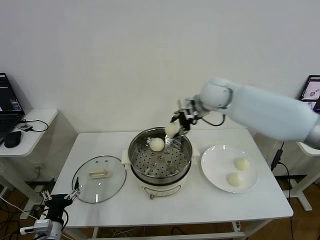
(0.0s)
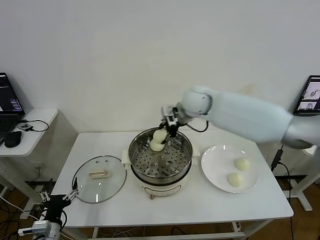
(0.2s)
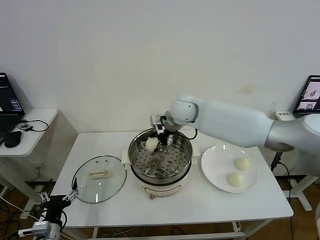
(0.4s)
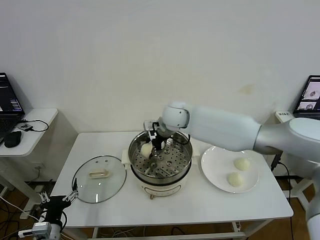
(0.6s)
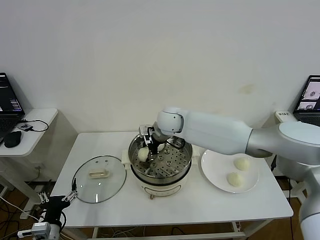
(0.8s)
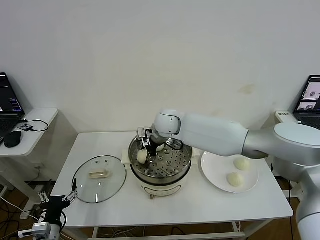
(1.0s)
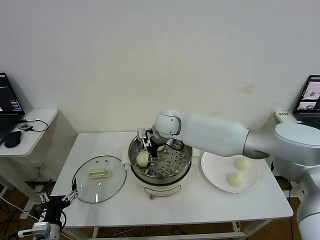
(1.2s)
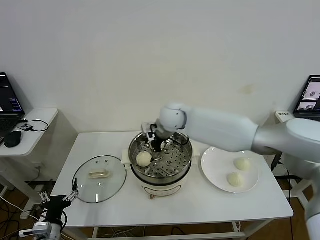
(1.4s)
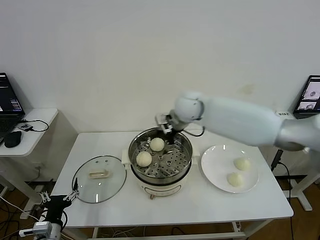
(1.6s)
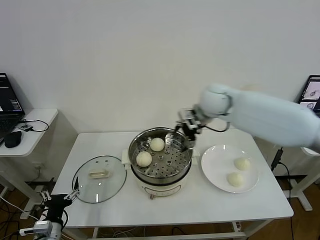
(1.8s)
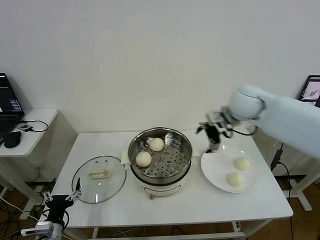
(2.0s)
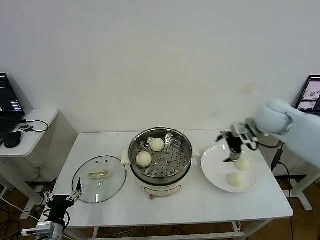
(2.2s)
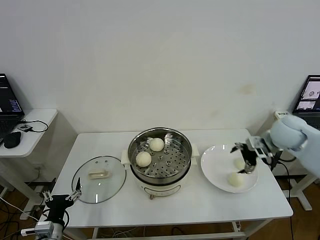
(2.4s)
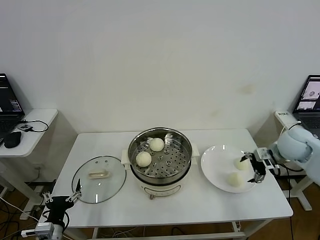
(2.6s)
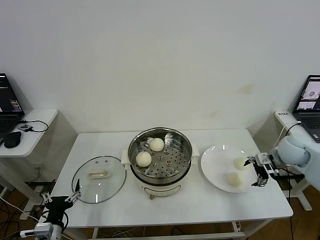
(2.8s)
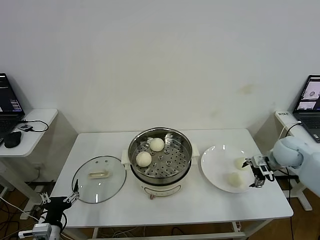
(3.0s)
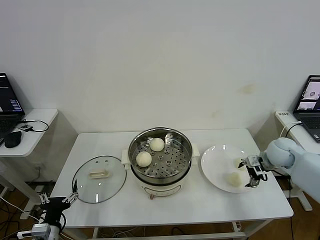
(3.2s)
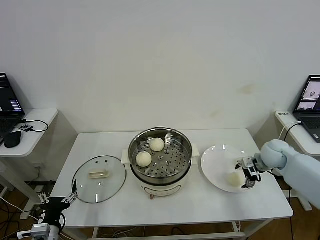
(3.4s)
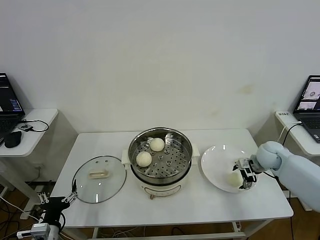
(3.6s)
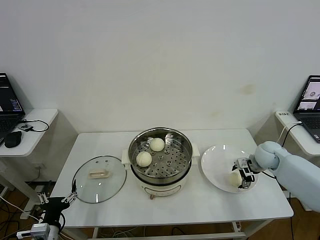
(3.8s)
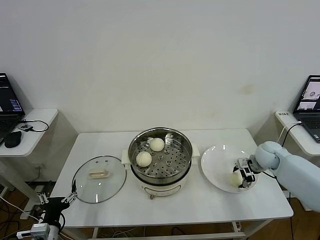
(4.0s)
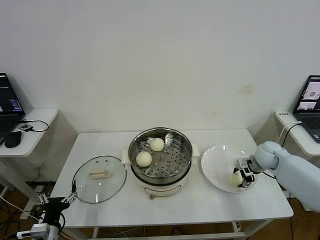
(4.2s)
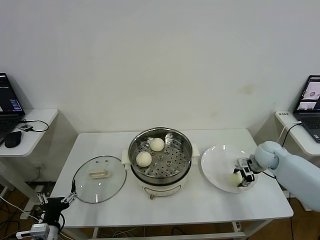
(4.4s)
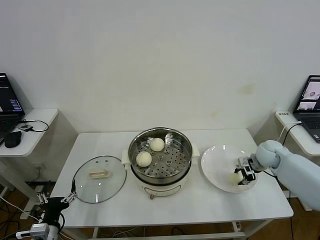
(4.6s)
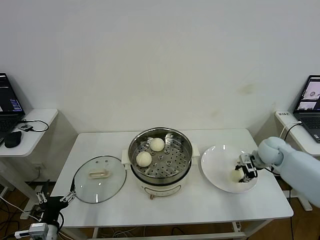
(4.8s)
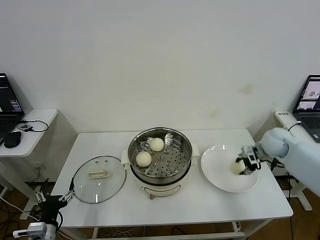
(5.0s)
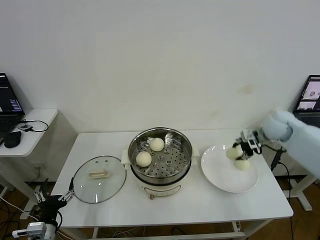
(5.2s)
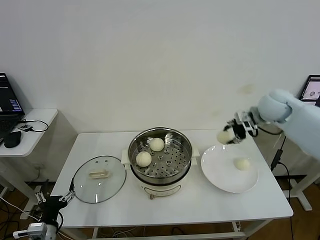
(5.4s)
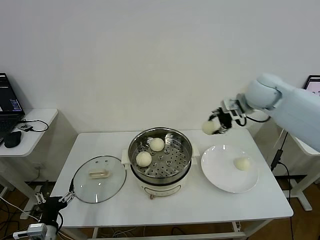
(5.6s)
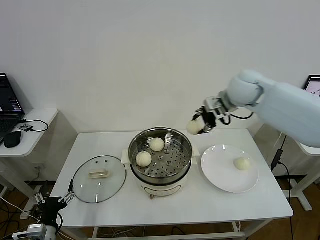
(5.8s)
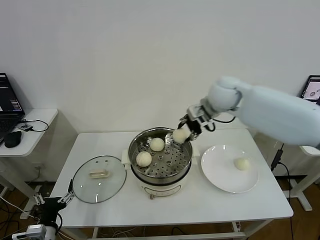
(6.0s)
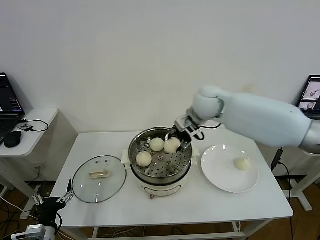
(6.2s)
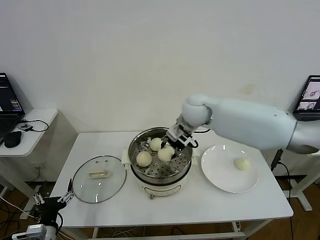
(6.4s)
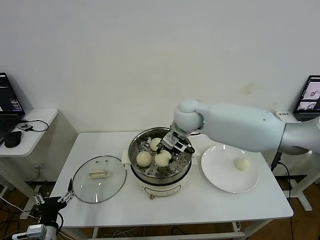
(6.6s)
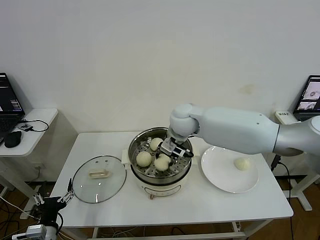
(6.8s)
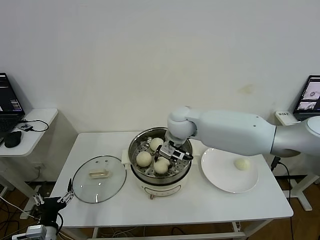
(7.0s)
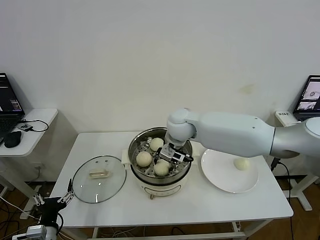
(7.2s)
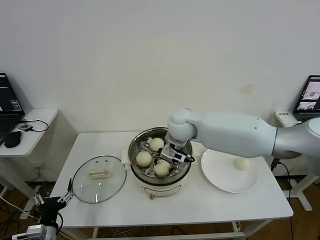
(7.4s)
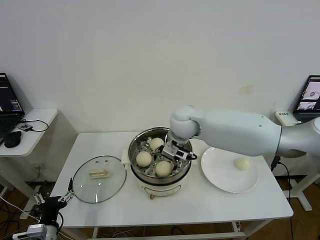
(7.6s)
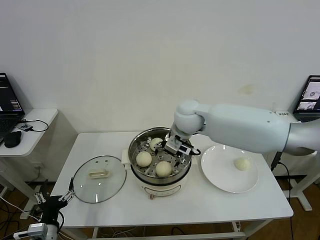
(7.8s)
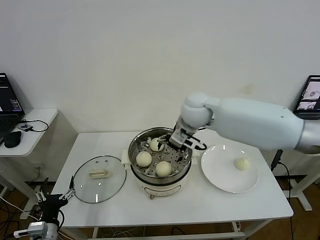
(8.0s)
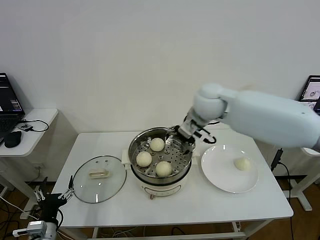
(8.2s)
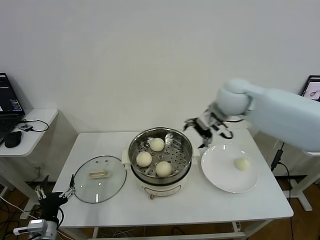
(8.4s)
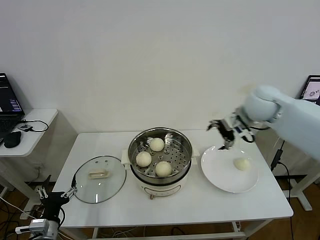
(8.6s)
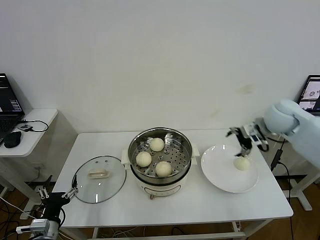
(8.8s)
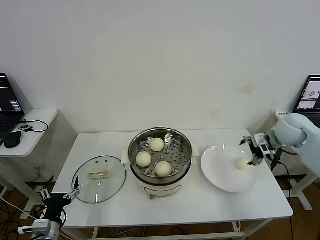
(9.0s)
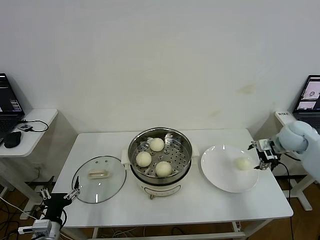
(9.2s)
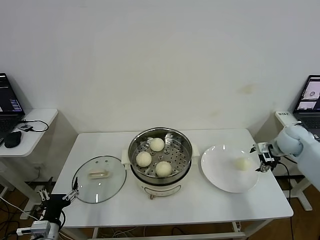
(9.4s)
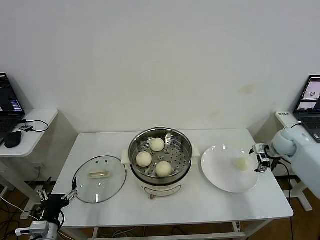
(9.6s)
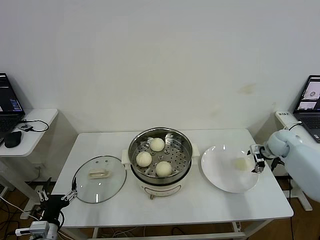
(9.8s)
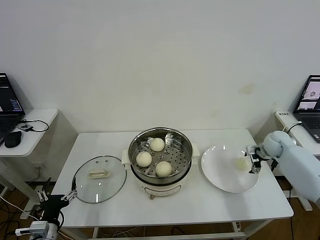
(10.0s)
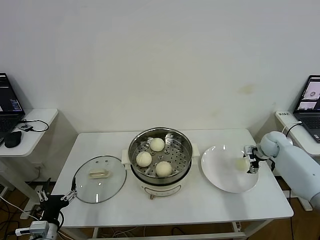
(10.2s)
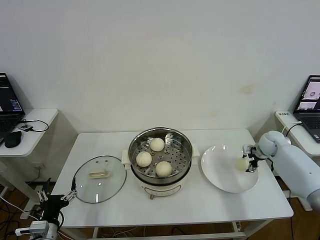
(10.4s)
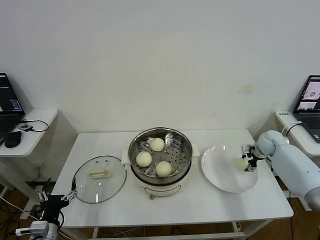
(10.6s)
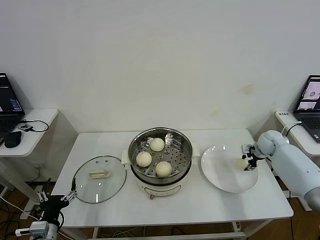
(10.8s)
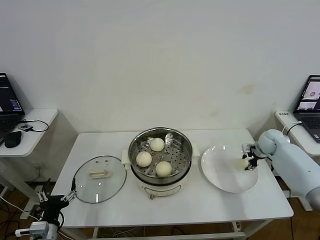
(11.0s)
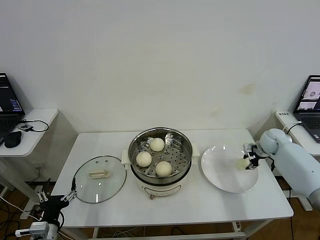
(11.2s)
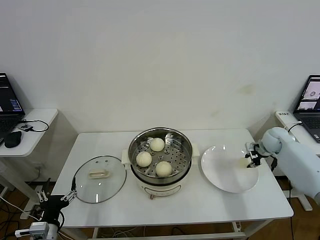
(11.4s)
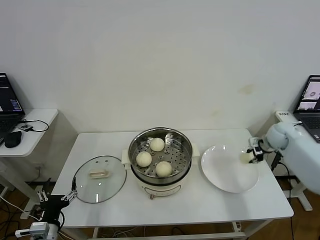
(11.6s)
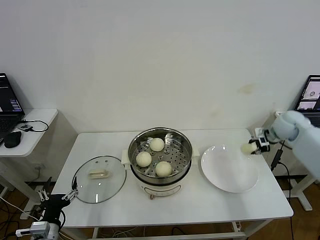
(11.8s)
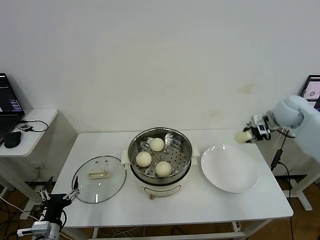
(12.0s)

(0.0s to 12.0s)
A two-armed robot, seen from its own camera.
Step, 1.4s - 4.4s: Grasp the baozi in the plate with right gripper.
Step, 4.6s - 7.6s: Place the baozi on the steamer with right gripper.
Step, 7.8s - 11.2s: Grasp the baozi in the plate with right gripper.
0.0s - 1.6s: The right gripper shifts approximately 10 cm to the left, and opens up.
1.6s - 3.0s: The right gripper heads to the right, covering about 35 cm.
3.0s - 4.4s: The right gripper moves downward, roughly 5 cm, and closes its fingers.
4.4s - 6.0s: The right gripper is displaced upward and to the left by approximately 30 cm.
6.0s - 7.6s: The right gripper moves to the left and downward, approximately 15 cm, and opens.
7.6s - 9.0s: The right gripper is displaced to the right by roughly 35 cm.
9.0s - 10.4s: The right gripper shifts approximately 15 cm downward and forward.
10.4s - 12.0s: The right gripper moves upward, approximately 15 cm, and closes.

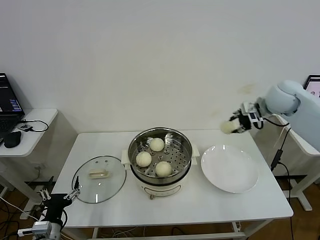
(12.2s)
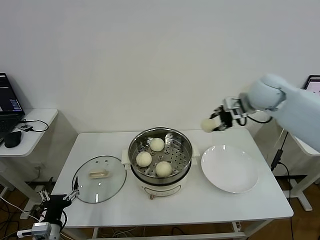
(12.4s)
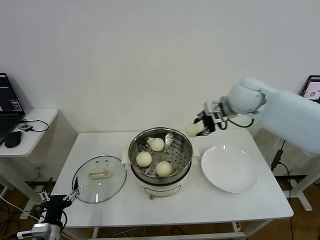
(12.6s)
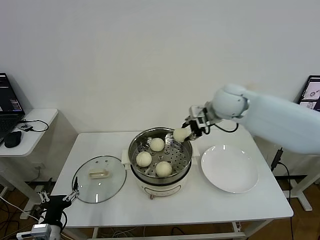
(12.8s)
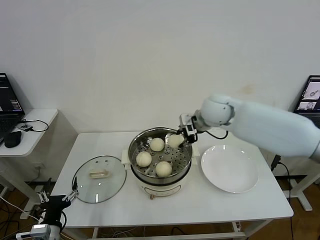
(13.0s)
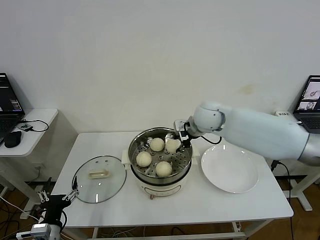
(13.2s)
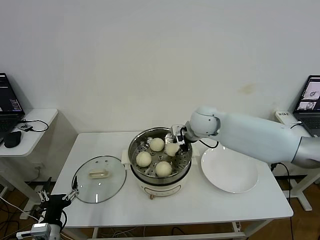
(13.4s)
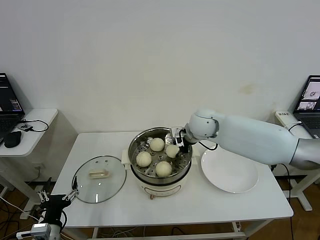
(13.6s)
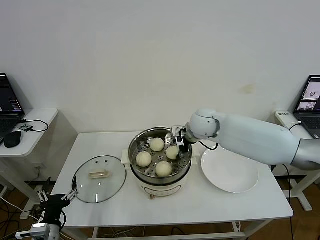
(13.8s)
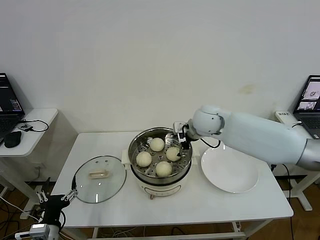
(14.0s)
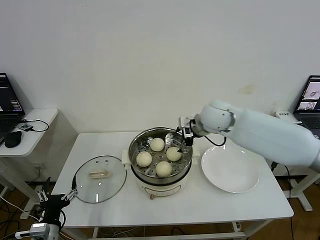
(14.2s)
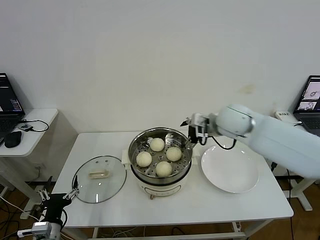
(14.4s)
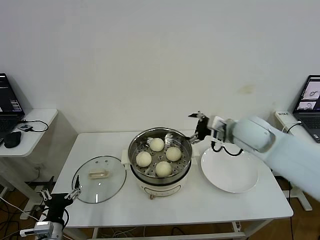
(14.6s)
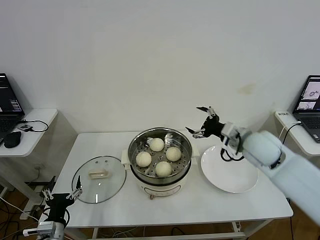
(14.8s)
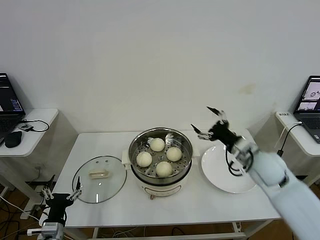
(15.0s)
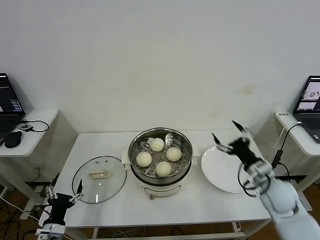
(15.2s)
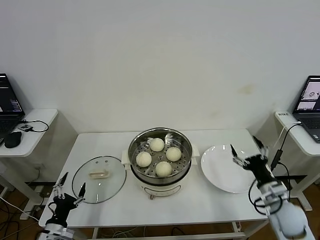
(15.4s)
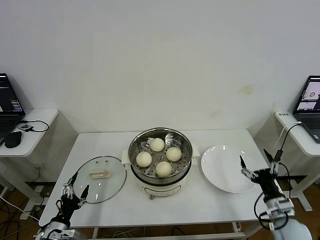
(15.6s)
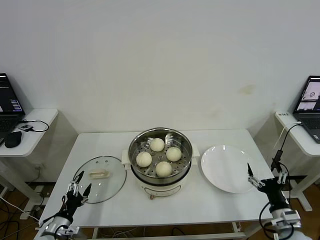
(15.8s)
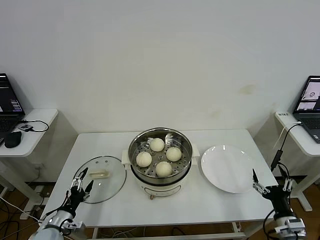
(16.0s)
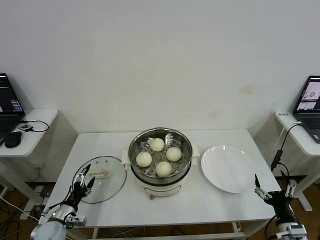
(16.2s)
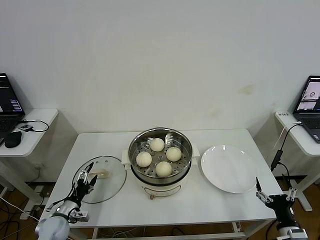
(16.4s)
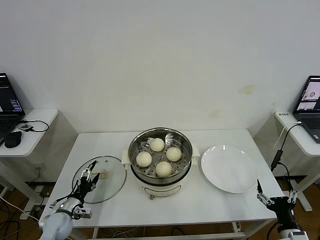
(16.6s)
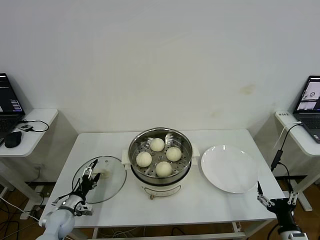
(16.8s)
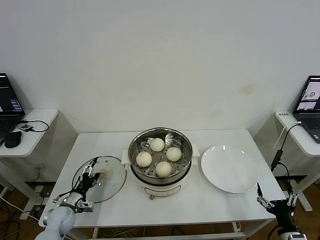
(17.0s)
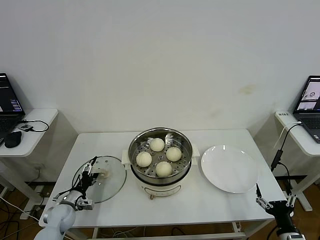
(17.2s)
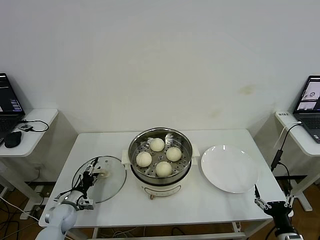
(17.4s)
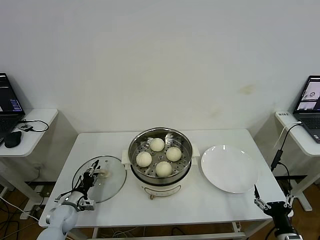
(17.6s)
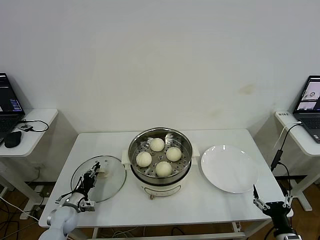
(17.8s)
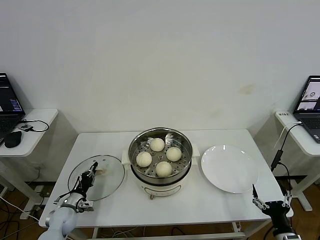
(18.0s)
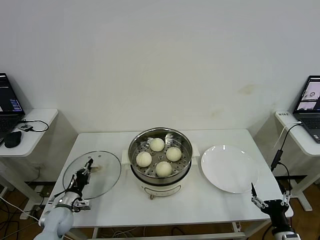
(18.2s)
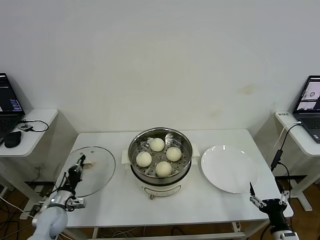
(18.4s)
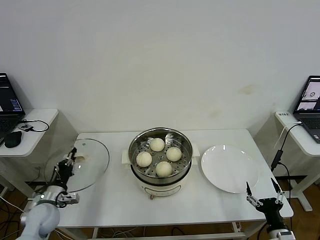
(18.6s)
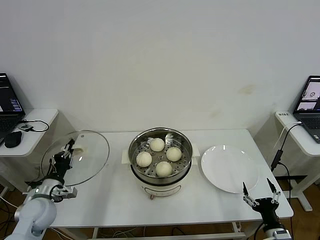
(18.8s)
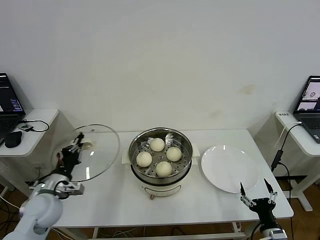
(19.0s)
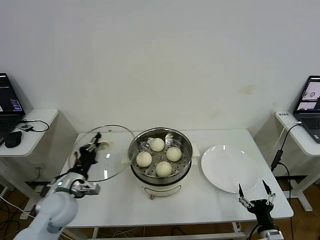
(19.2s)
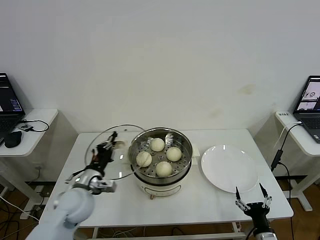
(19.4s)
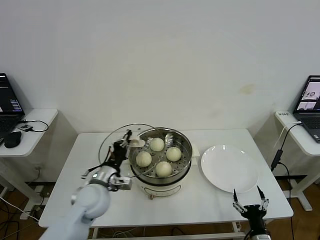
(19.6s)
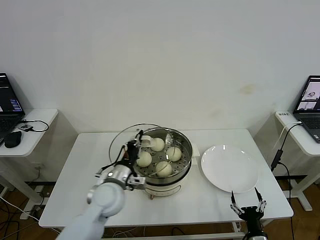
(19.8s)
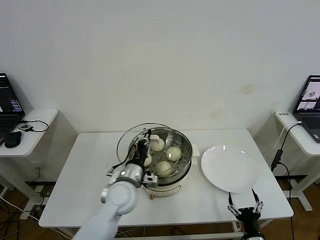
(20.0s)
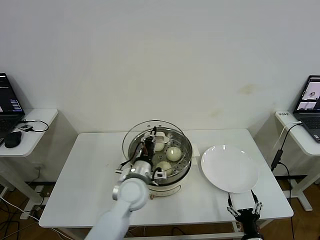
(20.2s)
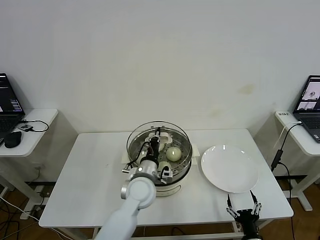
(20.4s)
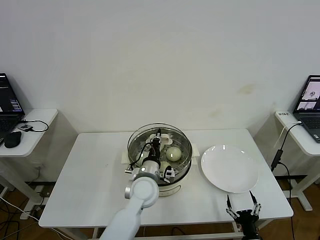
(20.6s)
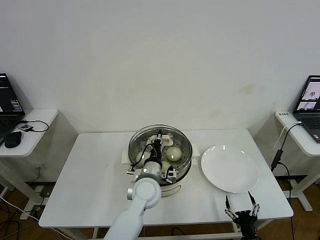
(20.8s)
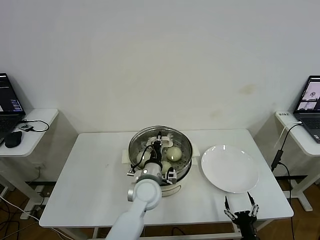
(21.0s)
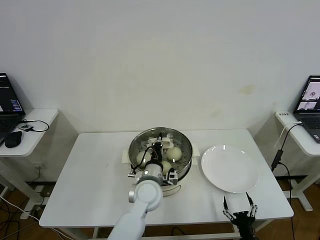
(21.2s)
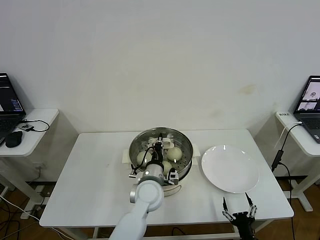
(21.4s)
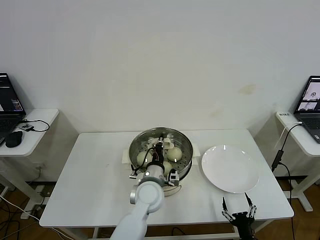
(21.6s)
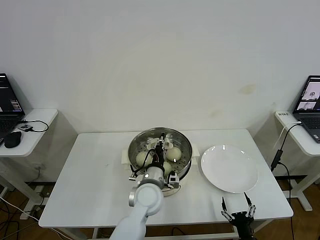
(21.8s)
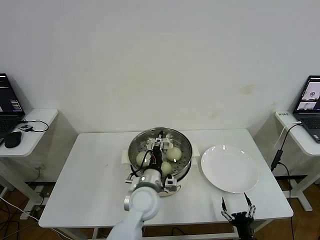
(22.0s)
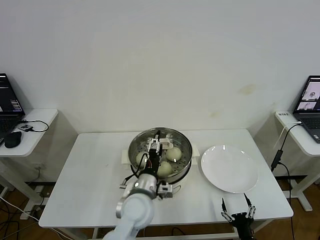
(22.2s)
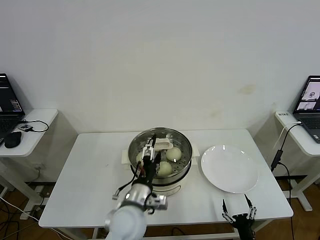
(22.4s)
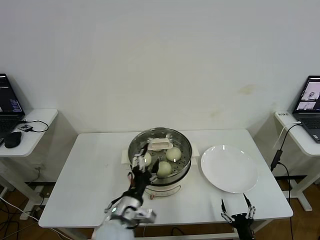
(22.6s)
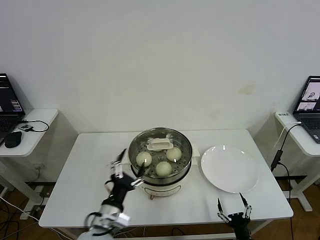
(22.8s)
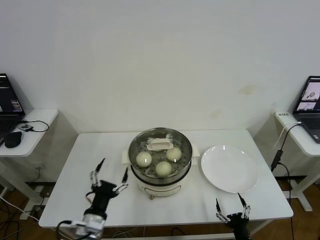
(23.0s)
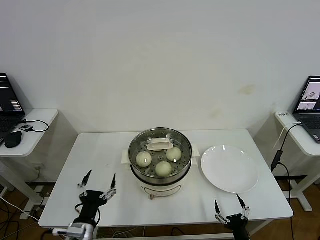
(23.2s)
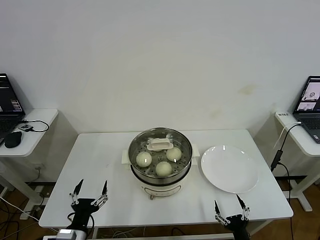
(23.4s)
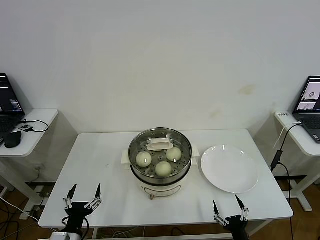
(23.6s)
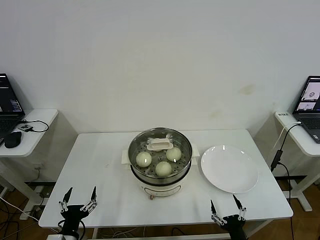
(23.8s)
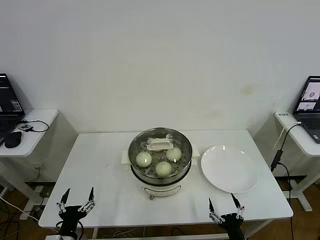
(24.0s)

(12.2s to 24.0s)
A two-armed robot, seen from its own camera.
Step, 12.2s - 14.0s: Place the baozi on the steamer with right gripper.
Step, 14.2s - 18.0s: Grasp the pot lid with left gripper.
Step, 18.2s - 21.8s: Place the pot lid on the steamer with left gripper.
12.2s - 13.6s: The right gripper is displaced to the left by some 25 cm.
13.6s - 15.2s: The right gripper moves to the right, backward and downward, approximately 30 cm, and opens its fingers.
15.2s - 16.6s: The left gripper heads forward and downward, covering approximately 10 cm. The right gripper travels backward and downward by some 20 cm.
16.6s - 18.2s: The left gripper closes up.
18.2s - 19.6s: The right gripper travels to the left by some 5 cm. Meanwhile the left gripper is displaced upward and to the right by approximately 25 cm.
19.6s - 21.0s: The left gripper heads to the right, covering some 15 cm.
21.0s - 22.6s: The left gripper heads backward and to the left, covering about 15 cm, and opens up.
22.6s - 24.0s: The left gripper goes some 25 cm to the left, downward and backward; the right gripper changes place by roughly 5 cm.
